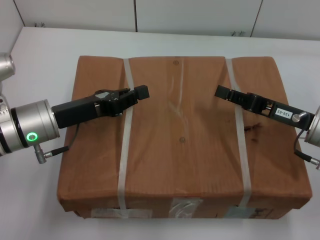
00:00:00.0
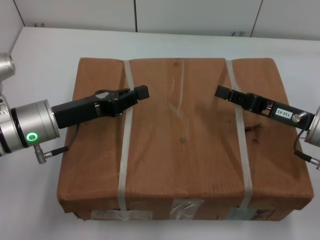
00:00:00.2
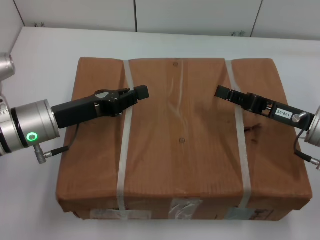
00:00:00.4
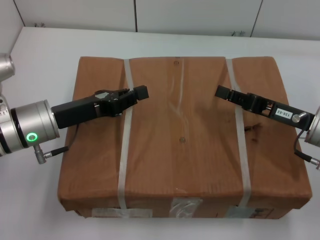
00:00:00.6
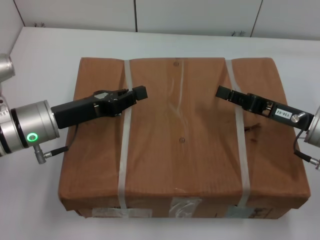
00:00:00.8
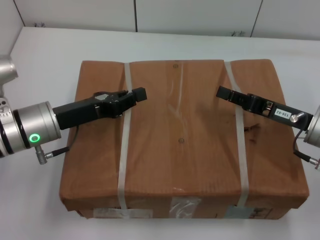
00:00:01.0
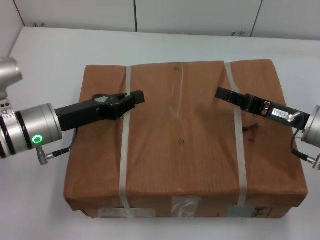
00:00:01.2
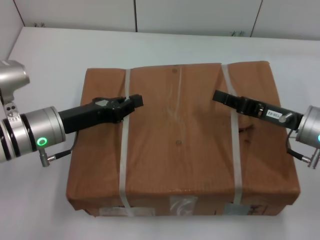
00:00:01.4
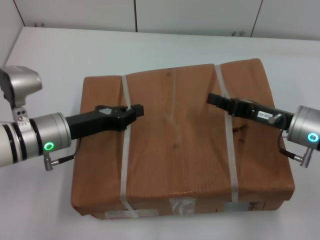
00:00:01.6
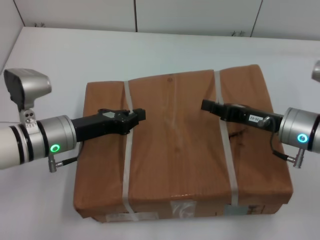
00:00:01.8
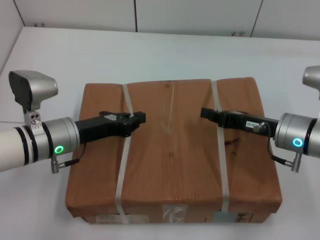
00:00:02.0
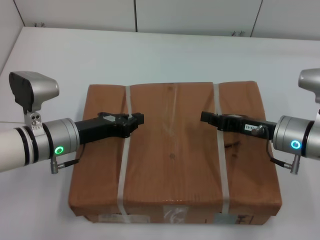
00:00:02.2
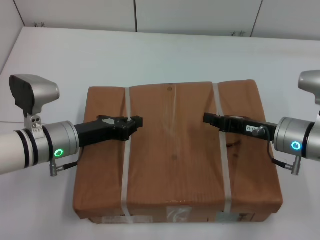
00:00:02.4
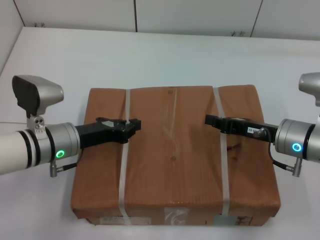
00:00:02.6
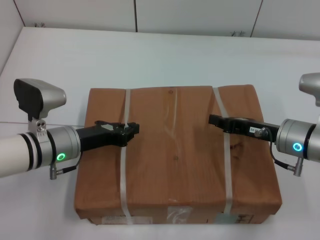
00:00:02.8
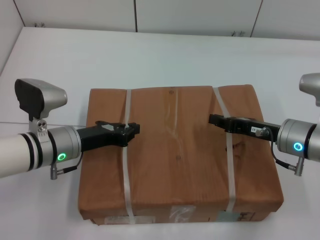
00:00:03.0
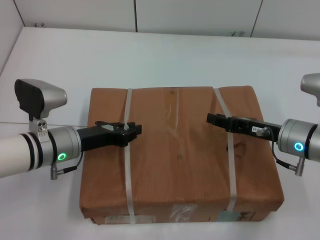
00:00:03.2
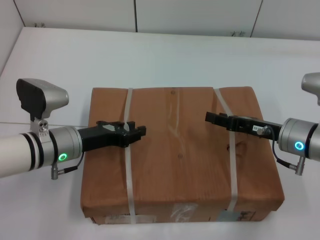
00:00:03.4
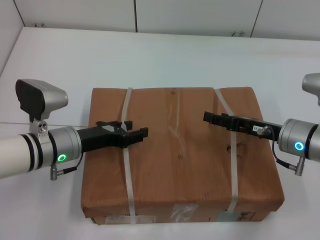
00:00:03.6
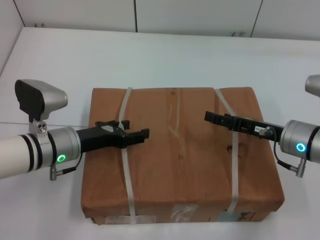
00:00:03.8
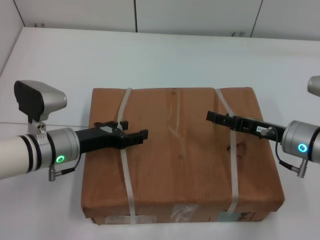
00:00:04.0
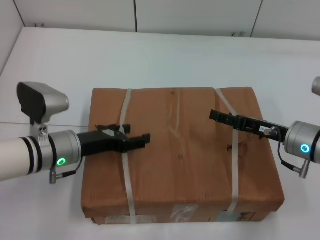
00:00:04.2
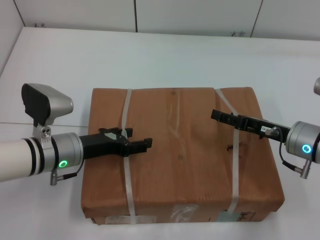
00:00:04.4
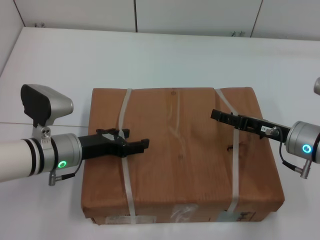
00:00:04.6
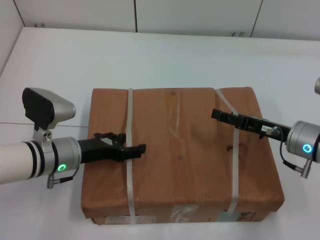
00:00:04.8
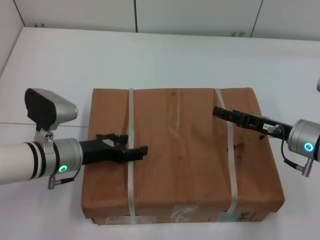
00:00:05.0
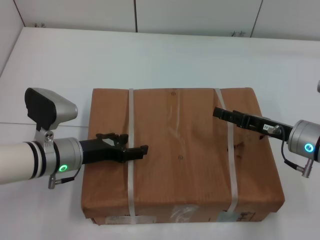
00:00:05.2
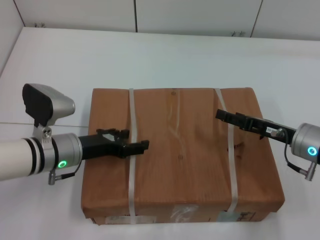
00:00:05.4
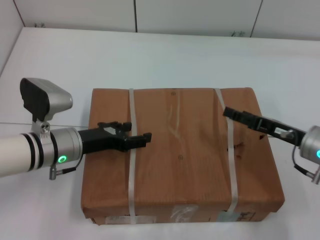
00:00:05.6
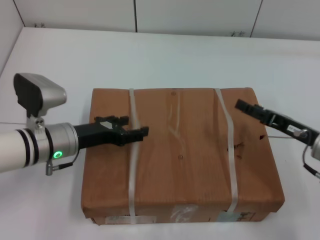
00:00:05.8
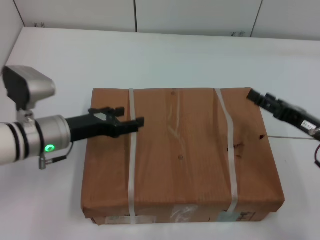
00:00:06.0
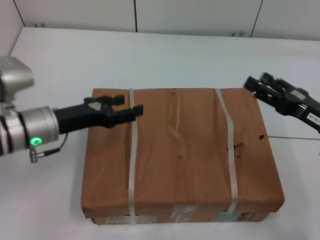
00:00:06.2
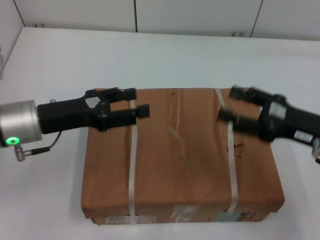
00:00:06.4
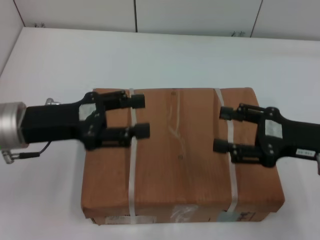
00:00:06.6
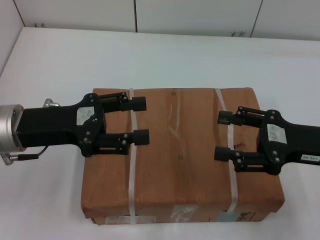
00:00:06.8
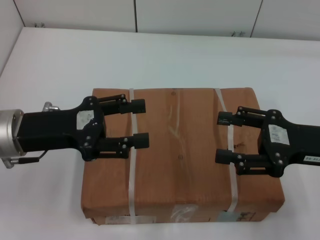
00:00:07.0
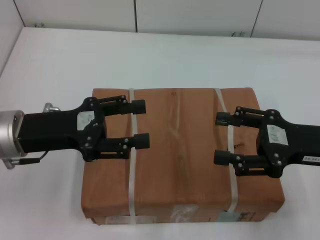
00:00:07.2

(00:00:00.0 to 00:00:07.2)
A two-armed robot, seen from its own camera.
Task of the whole recording: place the box on the table with both arms.
Step, 00:00:00.0 - 00:00:03.0: Place the box on the table with left gripper.
Step, 00:00:00.0 - 00:00:03.0: Place the box on the table with right gripper.
Step, 00:00:03.2 - 00:00:05.4: Loosen the box on the table with left gripper.
Step, 00:00:03.2 - 00:00:05.4: Loosen the box on the table with right gripper.
00:00:02.8 - 00:00:04.4: The right gripper opens. The left gripper opens its fingers.
00:00:04.4 - 00:00:05.8: The grippers stay close to where they were, moving slightly.
00:00:05.8 - 00:00:07.2: The grippers both shift upward by some 10 cm.

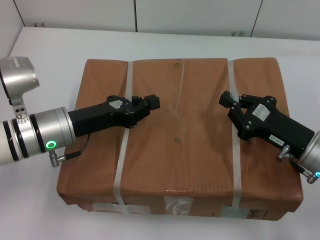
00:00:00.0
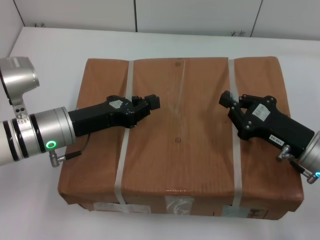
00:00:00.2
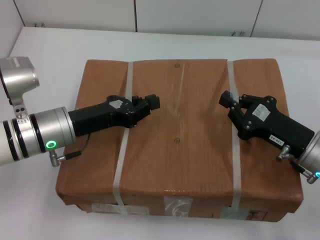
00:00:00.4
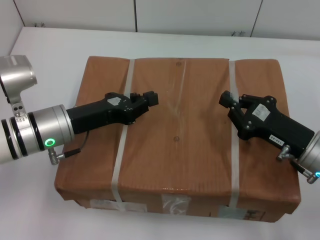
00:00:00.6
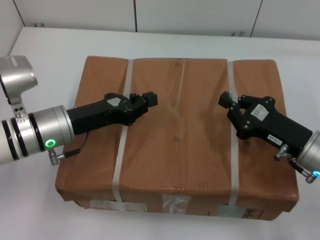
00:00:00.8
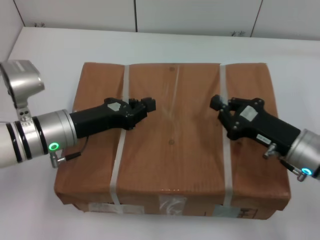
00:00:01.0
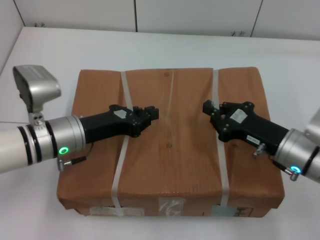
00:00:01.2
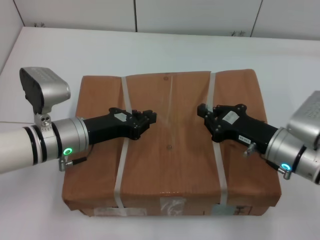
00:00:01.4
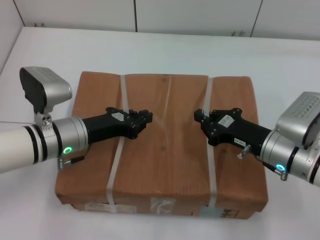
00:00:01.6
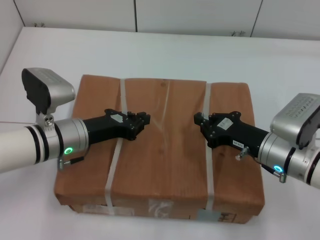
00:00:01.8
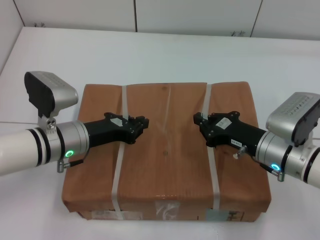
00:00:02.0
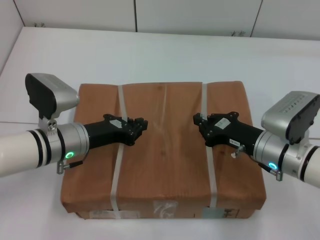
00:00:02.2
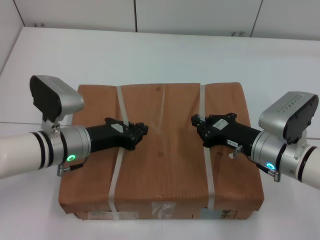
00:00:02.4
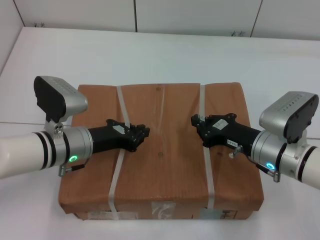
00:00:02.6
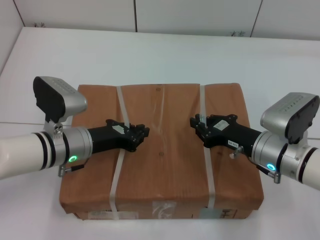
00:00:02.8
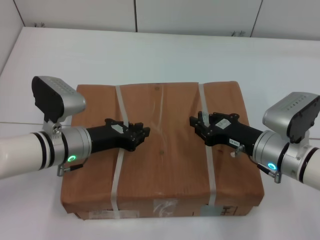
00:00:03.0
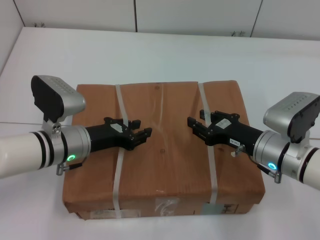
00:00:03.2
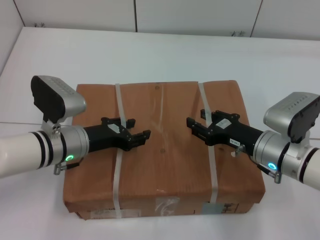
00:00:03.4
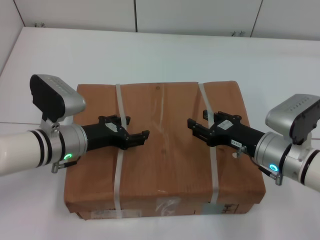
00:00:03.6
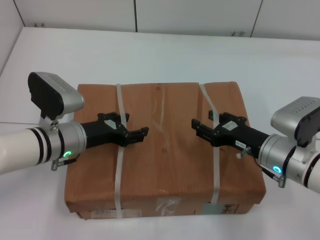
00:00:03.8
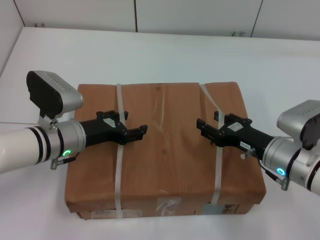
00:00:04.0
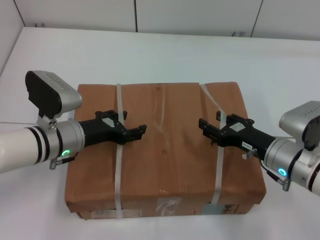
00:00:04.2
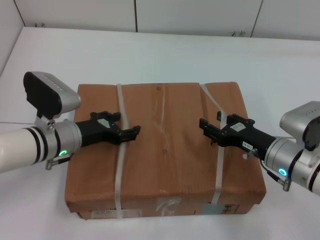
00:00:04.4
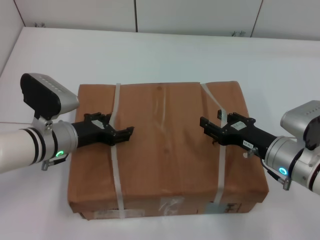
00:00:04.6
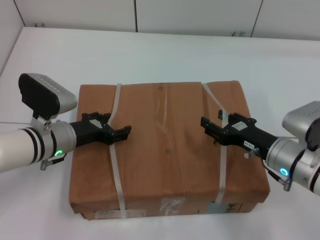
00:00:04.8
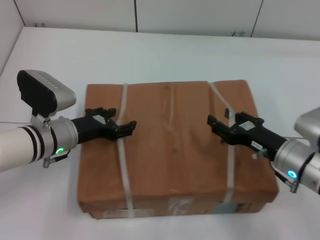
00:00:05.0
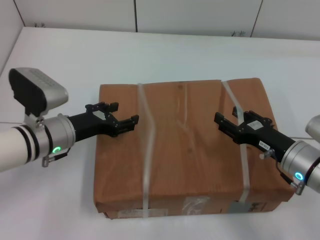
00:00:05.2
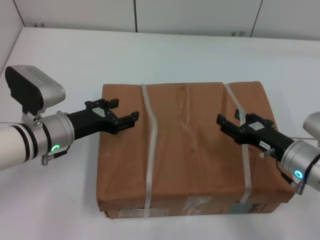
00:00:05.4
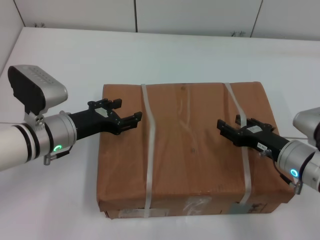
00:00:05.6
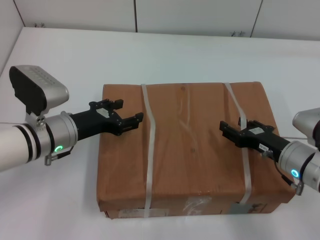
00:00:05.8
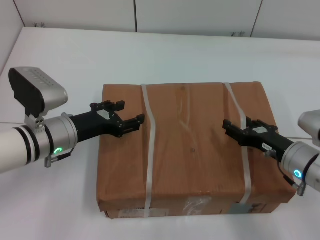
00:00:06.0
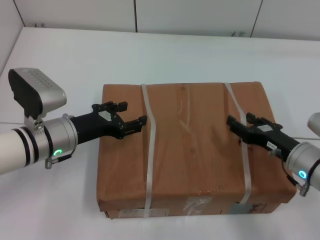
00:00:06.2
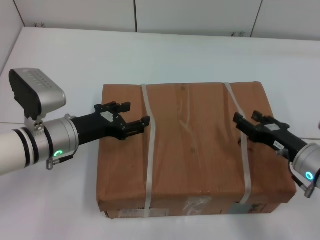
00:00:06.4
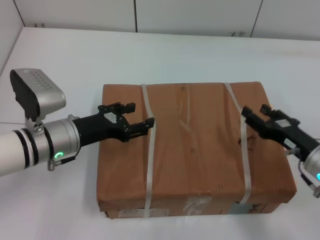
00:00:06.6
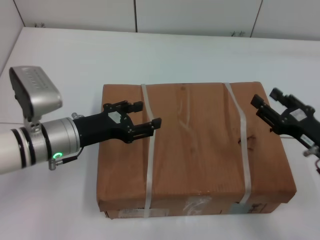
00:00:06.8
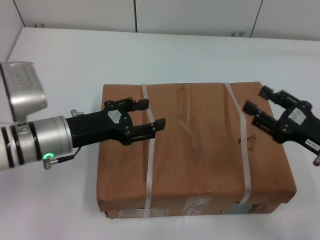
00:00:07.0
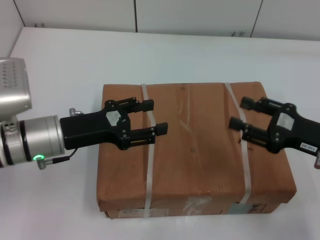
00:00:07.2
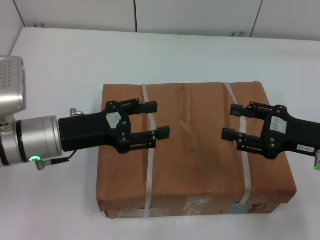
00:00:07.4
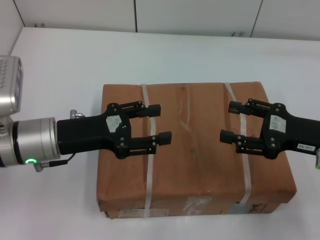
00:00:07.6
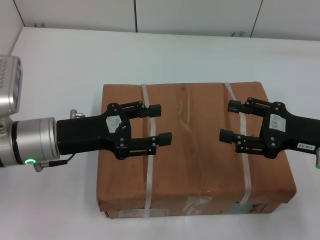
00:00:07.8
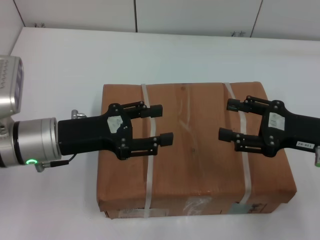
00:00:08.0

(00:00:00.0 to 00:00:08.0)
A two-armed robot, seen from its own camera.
Task of the whole recording: place the box on the table with both arms.
Step, 00:00:00.0 - 00:00:02.4: Place the box on the table with left gripper.
Step, 00:00:00.0 - 00:00:02.4: Place the box on the table with right gripper.
Step, 00:00:02.6 - 00:00:05.6: Loosen the box on the table with left gripper.
Step, 00:00:02.6 - 00:00:05.6: Loosen the box on the table with right gripper.
00:00:00.0 - 00:00:01.6: The right gripper moves roughly 5 cm.
00:00:03.2 - 00:00:04.8: The right gripper opens up; the left gripper opens its fingers.
00:00:06.4 - 00:00:08.0: The right gripper travels upward by approximately 10 cm; the left gripper is displaced upward by some 5 cm.
